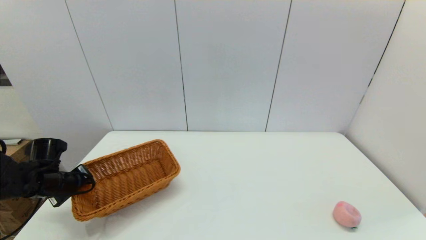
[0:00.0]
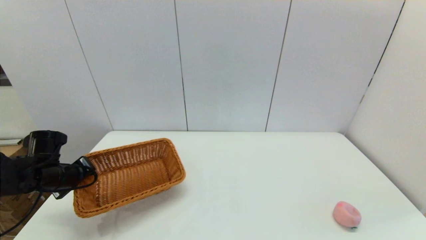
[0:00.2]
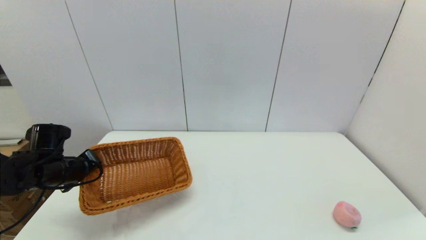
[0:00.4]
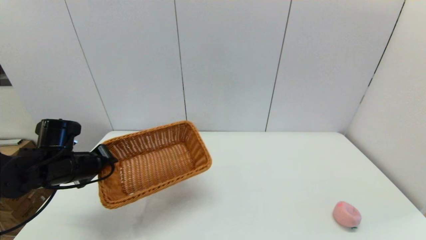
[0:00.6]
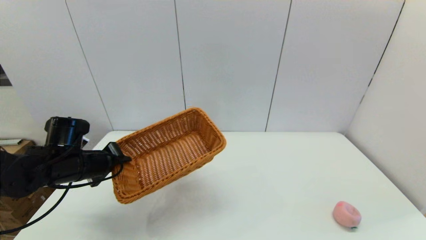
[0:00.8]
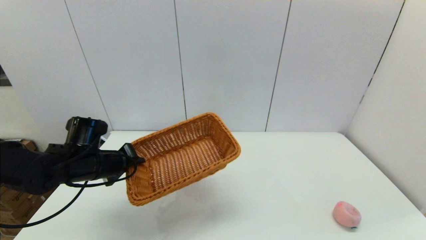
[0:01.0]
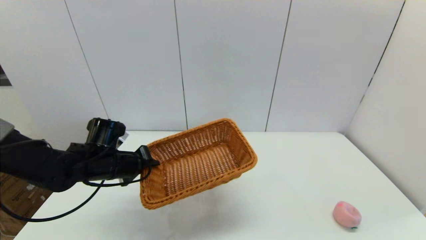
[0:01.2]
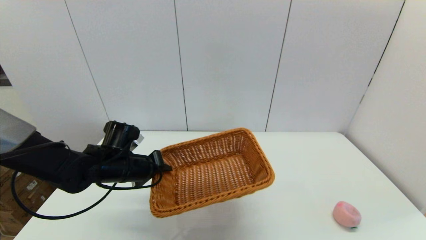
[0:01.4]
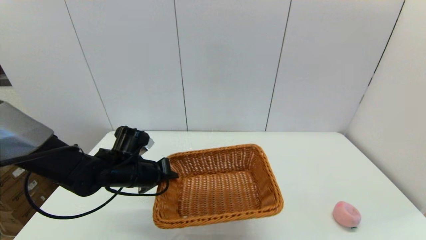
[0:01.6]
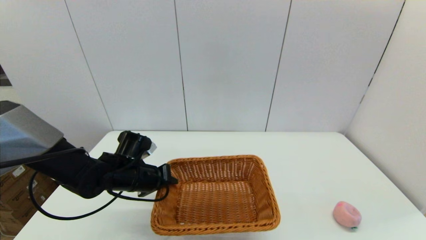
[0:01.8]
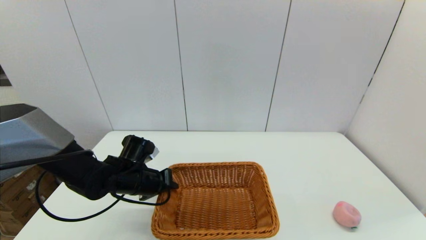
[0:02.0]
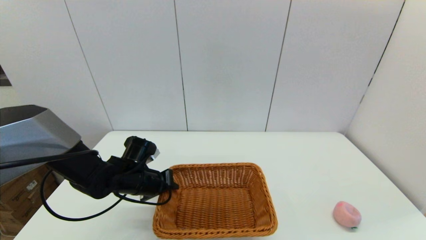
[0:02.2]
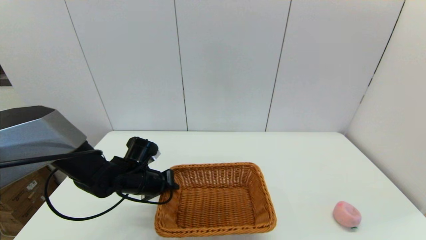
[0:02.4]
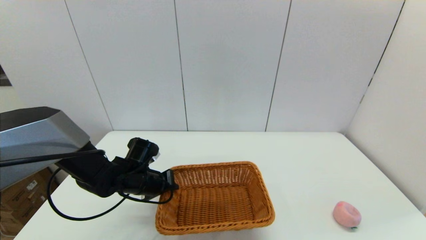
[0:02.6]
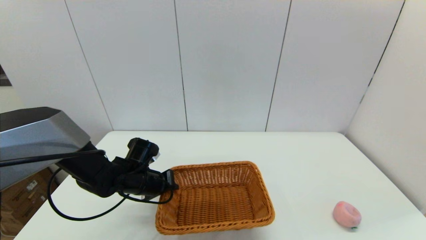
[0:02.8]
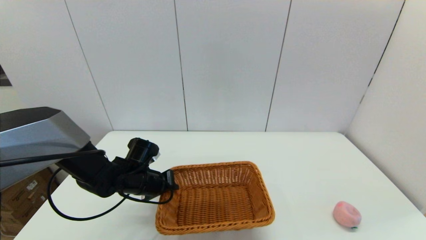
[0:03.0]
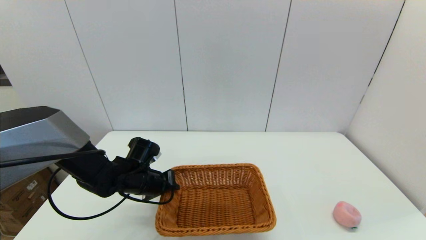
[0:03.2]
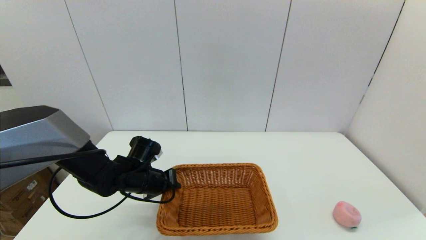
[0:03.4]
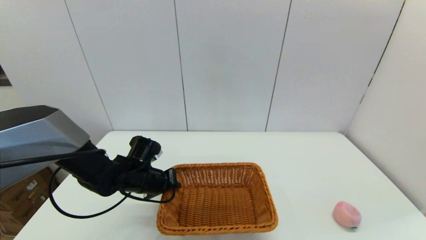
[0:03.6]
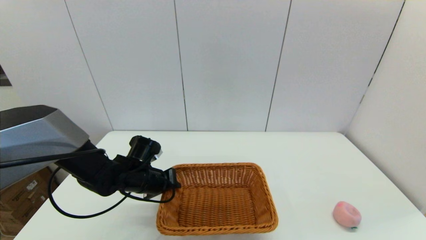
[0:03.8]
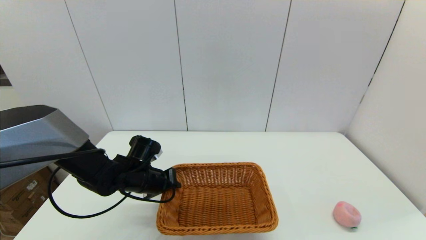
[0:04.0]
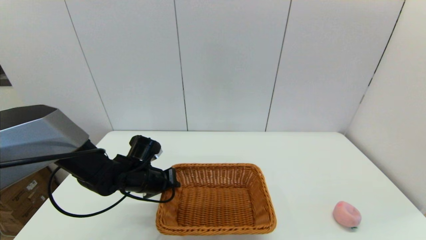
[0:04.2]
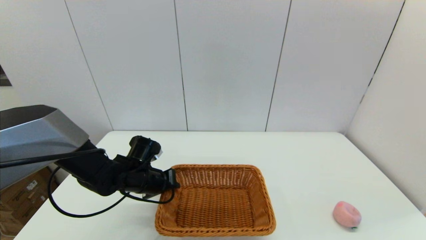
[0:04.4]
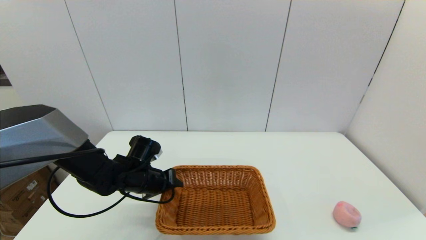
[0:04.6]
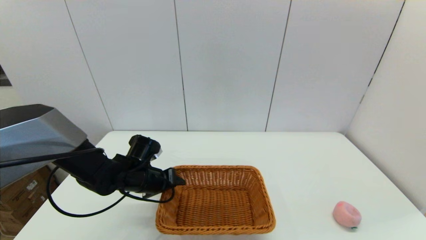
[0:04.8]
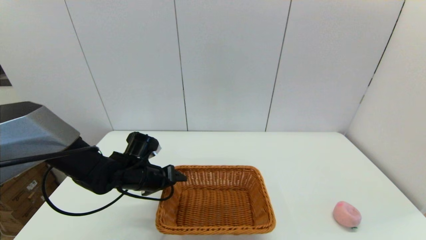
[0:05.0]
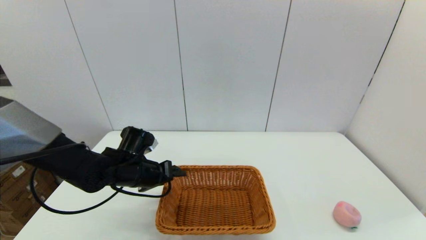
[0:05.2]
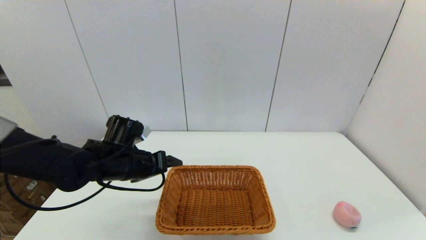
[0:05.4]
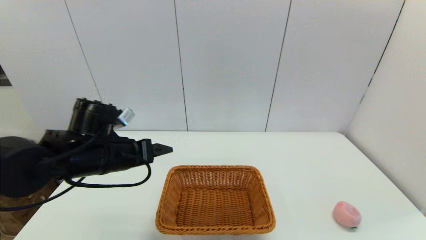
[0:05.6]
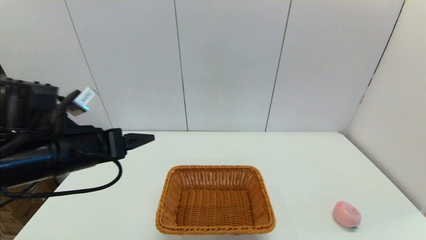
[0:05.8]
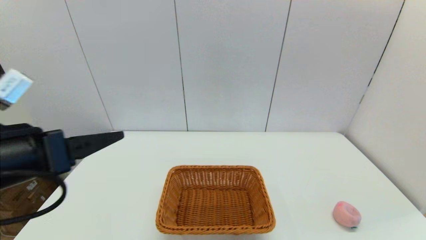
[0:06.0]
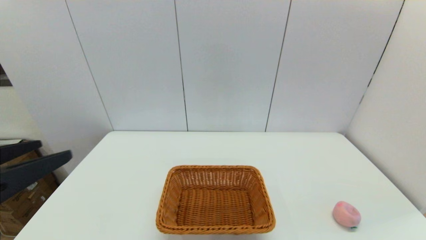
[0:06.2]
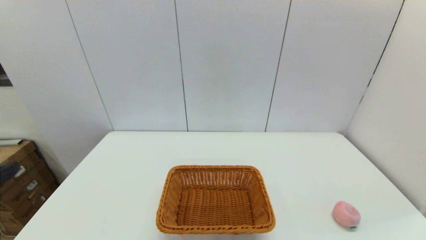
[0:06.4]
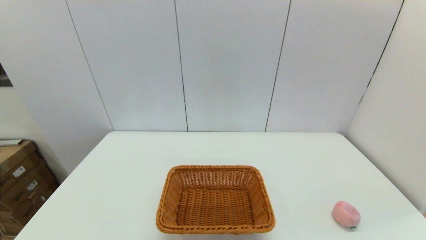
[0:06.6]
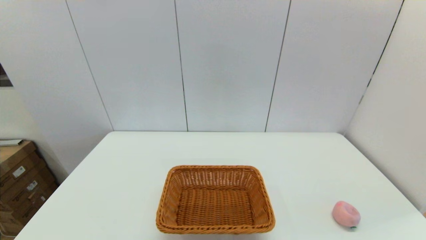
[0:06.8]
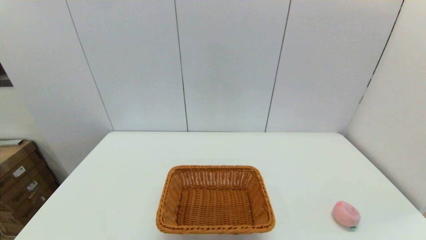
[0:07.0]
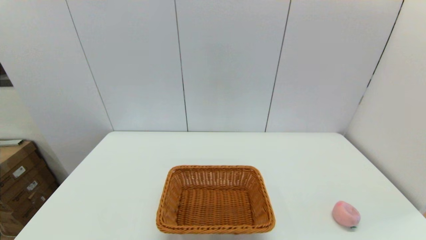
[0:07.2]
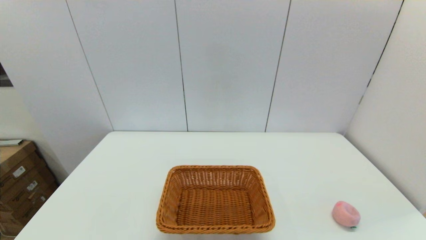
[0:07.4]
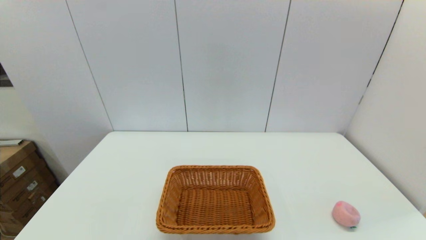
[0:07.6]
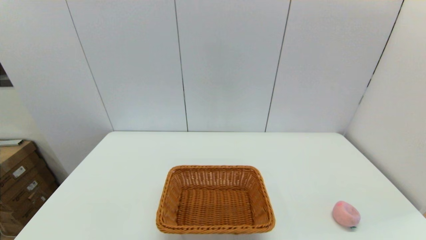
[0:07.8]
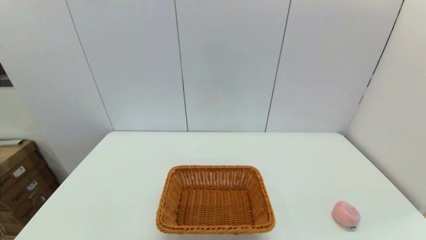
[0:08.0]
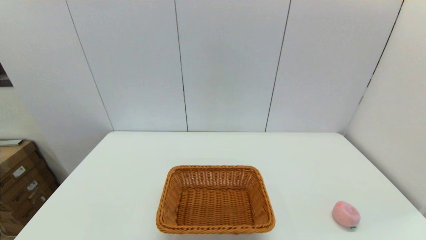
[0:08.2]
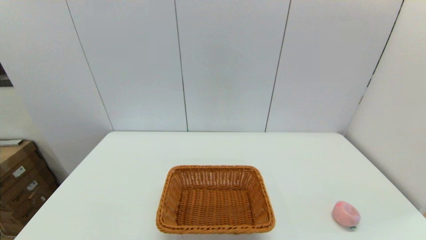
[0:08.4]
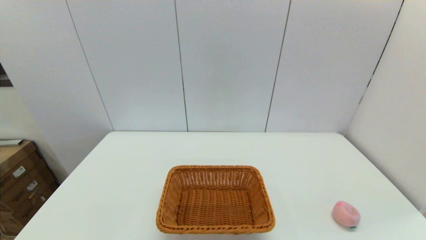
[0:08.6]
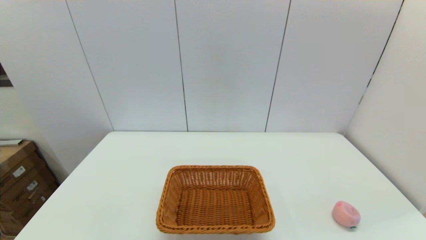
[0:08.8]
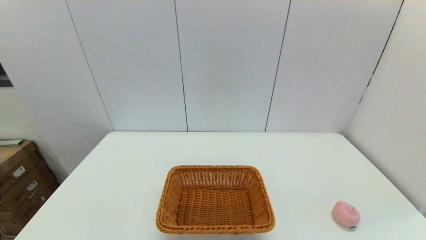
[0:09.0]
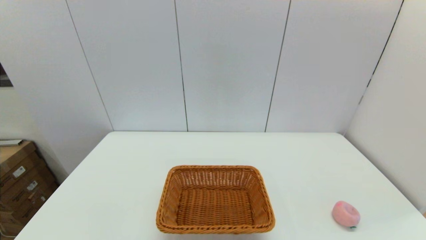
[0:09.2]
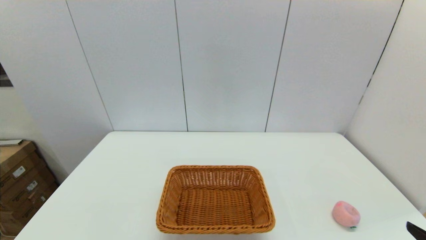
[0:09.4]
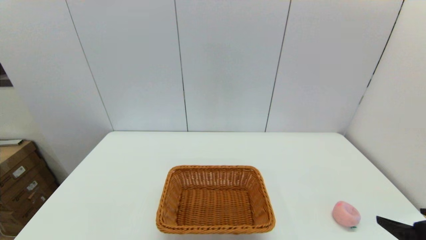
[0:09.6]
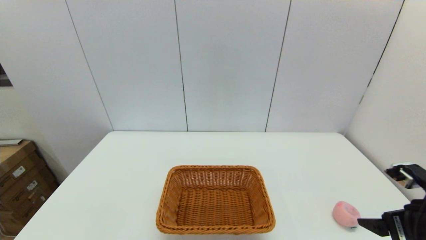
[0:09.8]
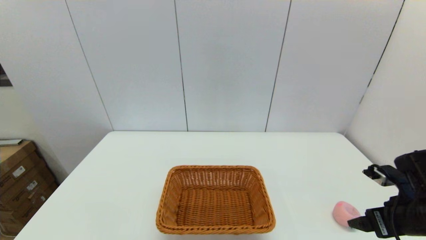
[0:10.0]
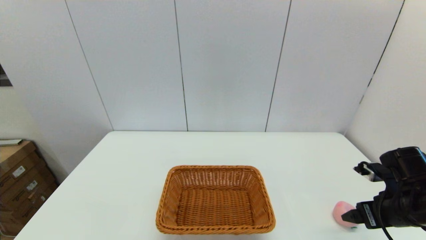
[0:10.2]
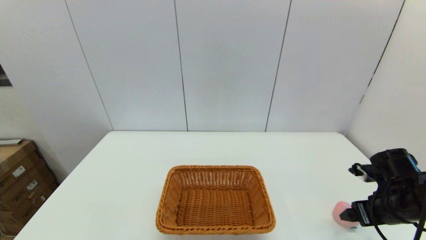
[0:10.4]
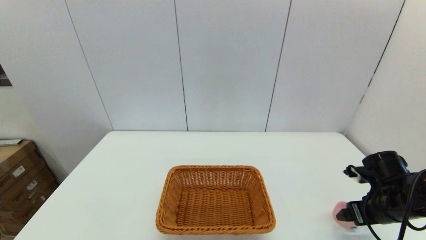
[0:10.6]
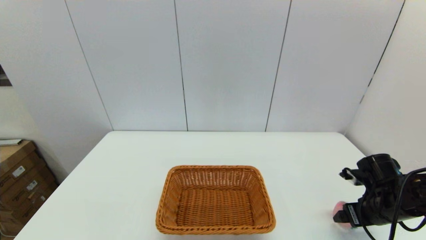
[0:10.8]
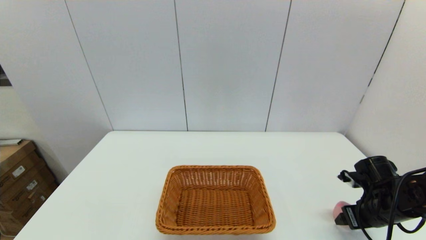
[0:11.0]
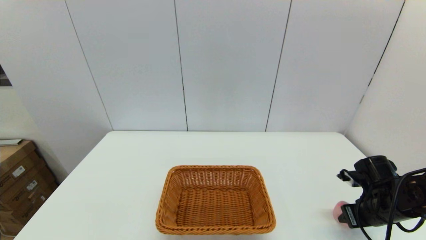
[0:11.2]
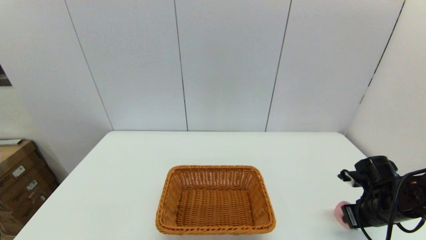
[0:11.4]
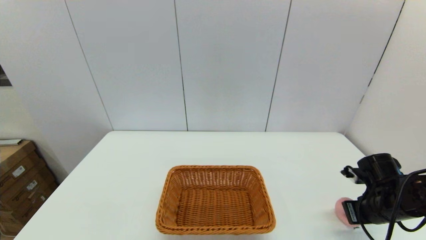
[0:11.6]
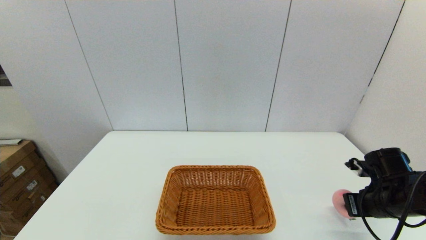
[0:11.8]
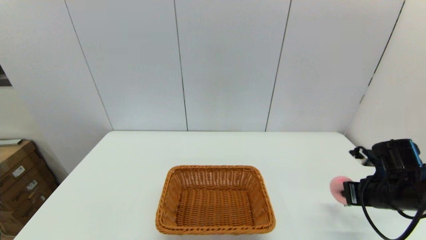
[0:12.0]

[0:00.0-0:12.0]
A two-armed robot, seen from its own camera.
Step, 0:00.2 to 0:04.8: Place the light basket on the middle of the table with the left gripper.
Step, 0:05.0 to 0:11.4: Grasp the peach with the right gripper.
0:00.0 to 0:01.6: The left gripper travels to the right by approximately 20 cm.
0:01.6 to 0:03.0: The grippers stay close to where they were, moving slightly.
0:03.0 to 0:04.4: Both grippers stay about where they are.
0:04.4 to 0:06.0: The left gripper moves upward and backward, roughly 30 cm, and opens its fingers.
0:06.0 to 0:07.6: The left gripper travels backward and downward by some 25 cm.
0:09.0 to 0:10.4: The right gripper goes approximately 25 cm forward.
0:10.4 to 0:12.0: The right gripper closes.

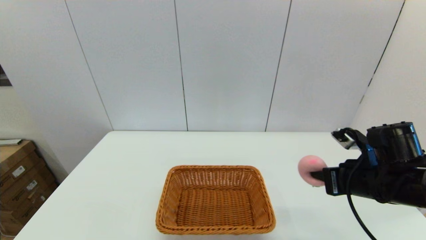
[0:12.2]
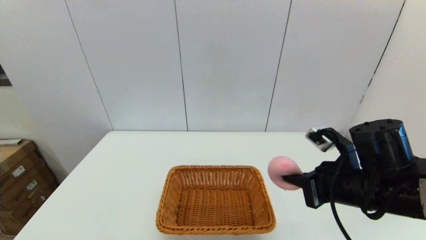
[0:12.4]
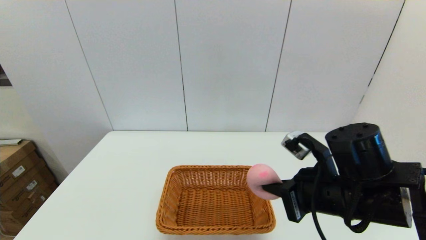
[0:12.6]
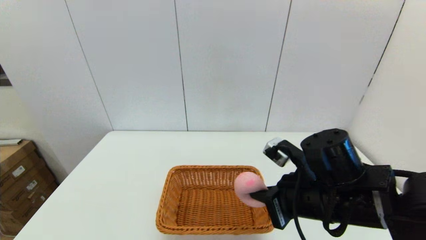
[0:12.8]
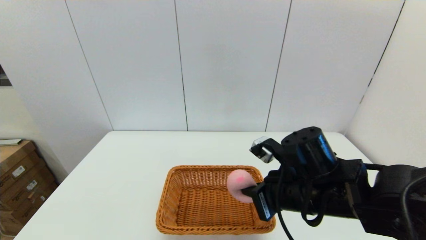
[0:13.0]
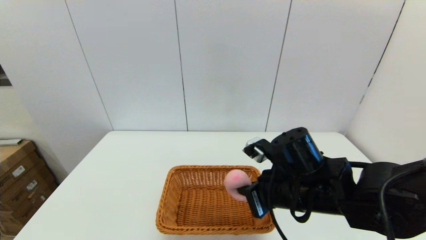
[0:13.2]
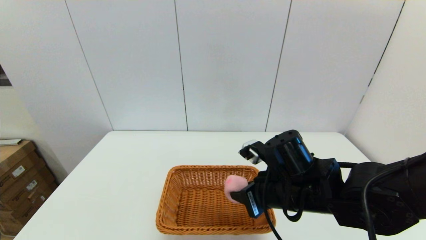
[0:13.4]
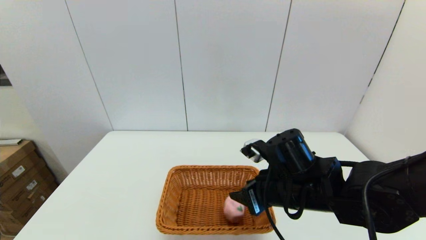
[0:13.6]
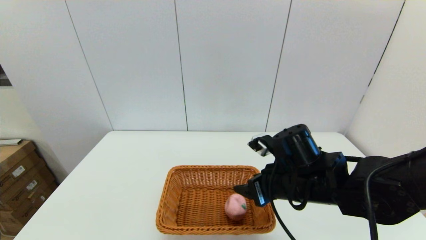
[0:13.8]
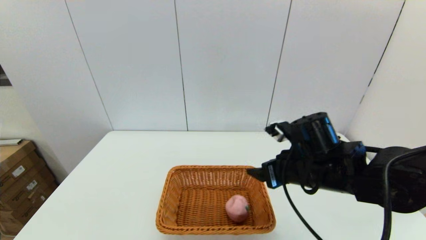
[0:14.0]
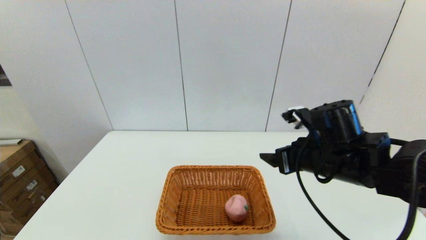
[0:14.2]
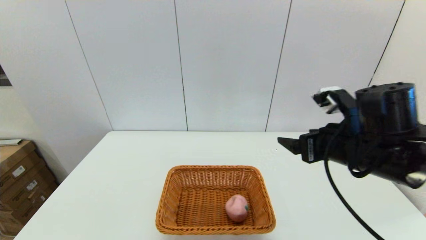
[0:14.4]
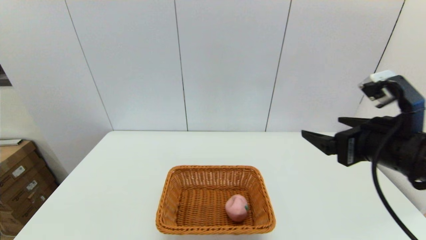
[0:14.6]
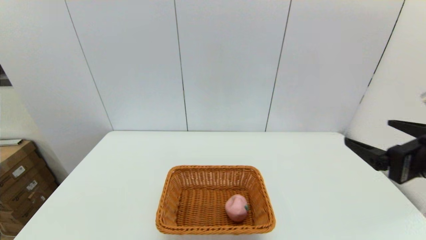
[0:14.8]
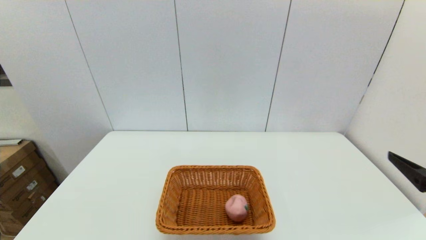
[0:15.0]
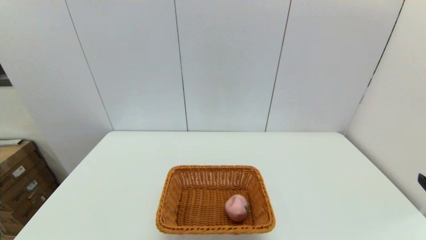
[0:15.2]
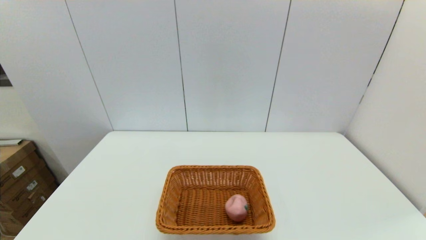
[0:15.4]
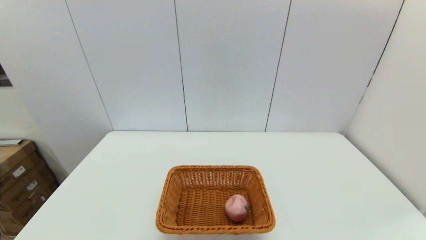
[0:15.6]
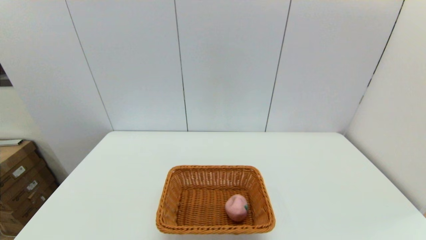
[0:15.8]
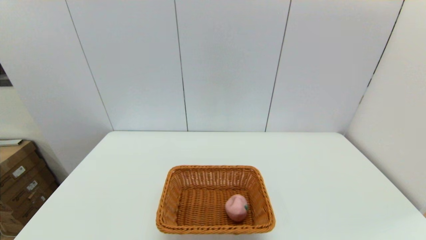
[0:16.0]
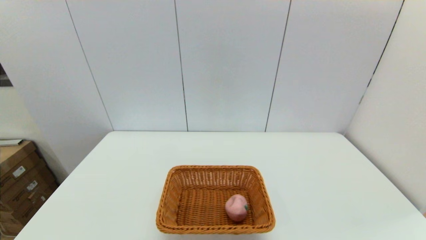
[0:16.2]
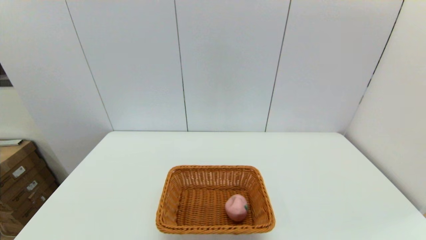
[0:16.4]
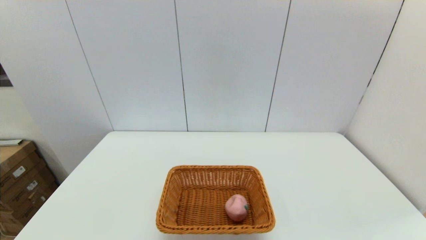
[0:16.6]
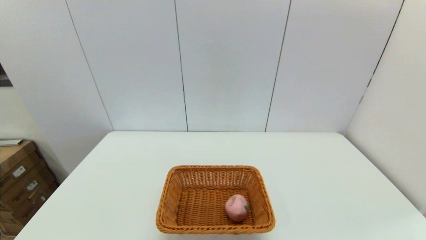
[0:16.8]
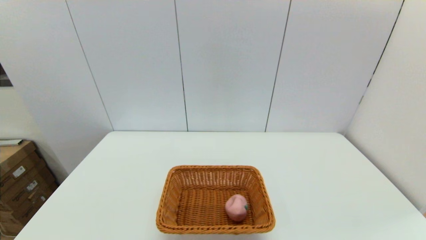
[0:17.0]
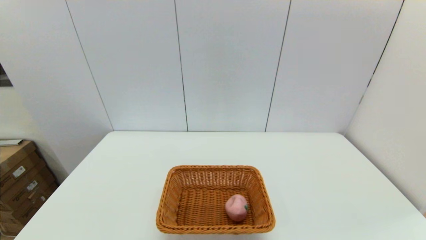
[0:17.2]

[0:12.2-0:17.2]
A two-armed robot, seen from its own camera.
Step, 0:12.2 to 0:13.6: Place the peach into the light basket with the right gripper.
0:12.2 to 0:13.8: The right gripper travels to the left by about 15 cm, and opens its fingers.
0:13.8 to 0:15.6: The right gripper moves backward and to the right, approximately 30 cm.
